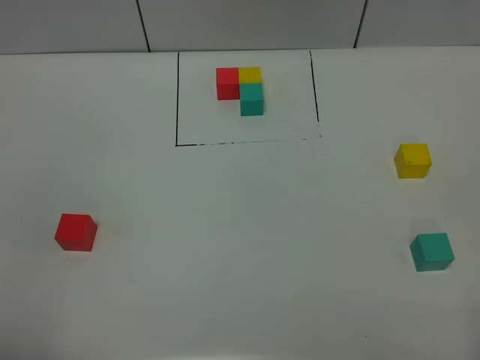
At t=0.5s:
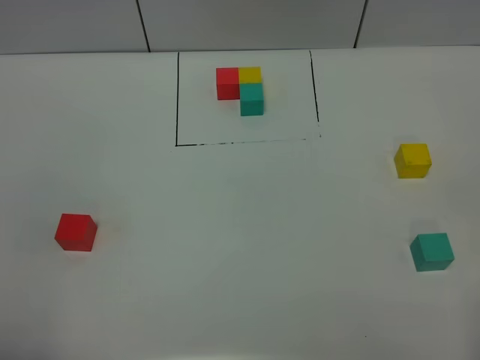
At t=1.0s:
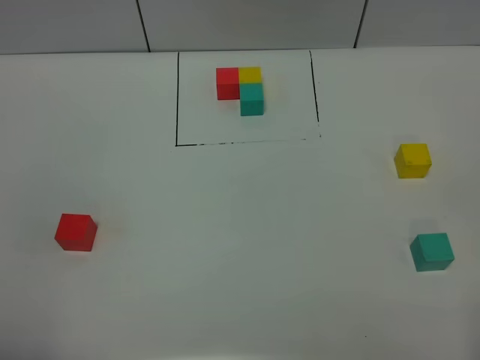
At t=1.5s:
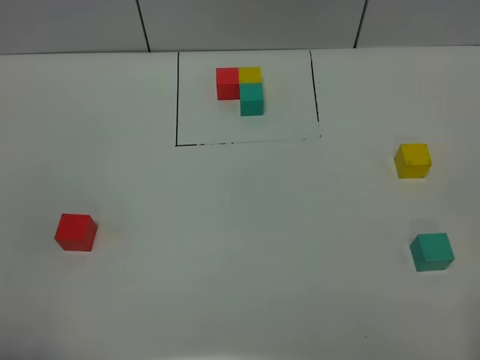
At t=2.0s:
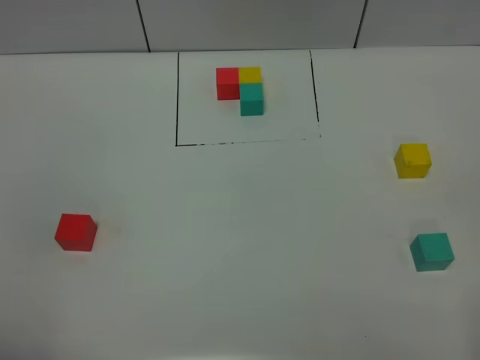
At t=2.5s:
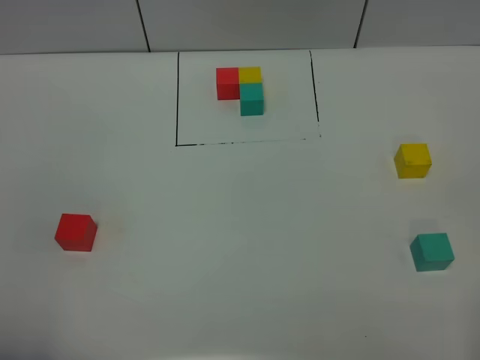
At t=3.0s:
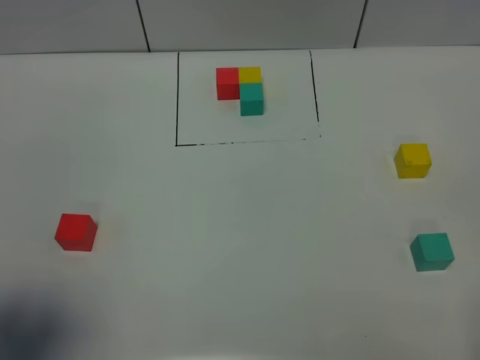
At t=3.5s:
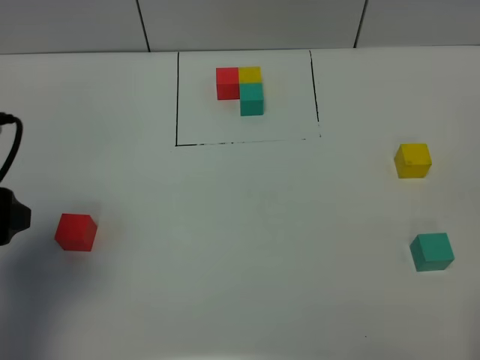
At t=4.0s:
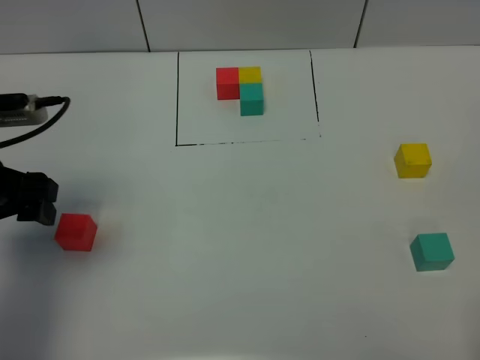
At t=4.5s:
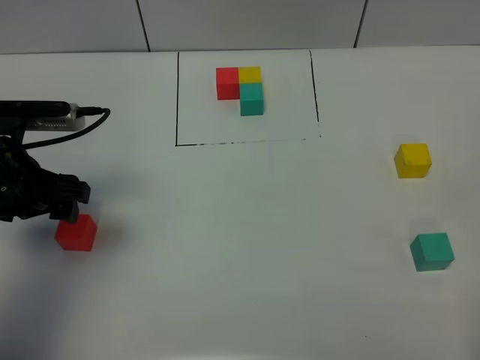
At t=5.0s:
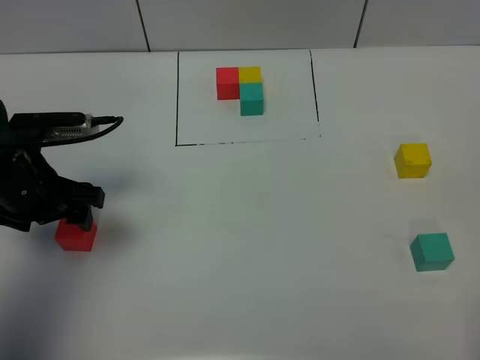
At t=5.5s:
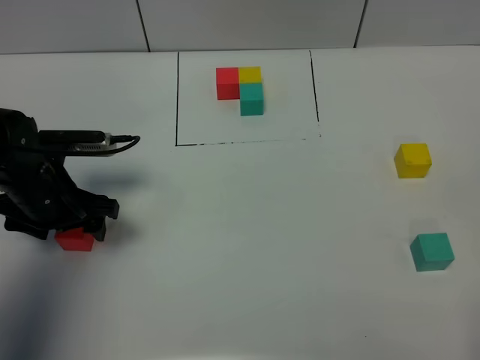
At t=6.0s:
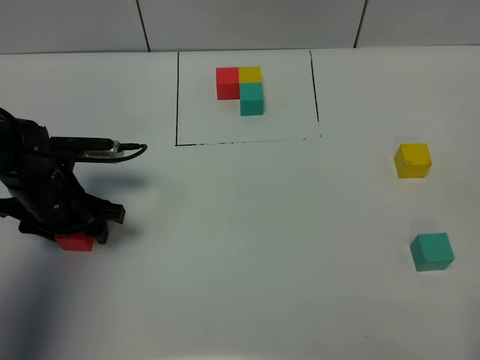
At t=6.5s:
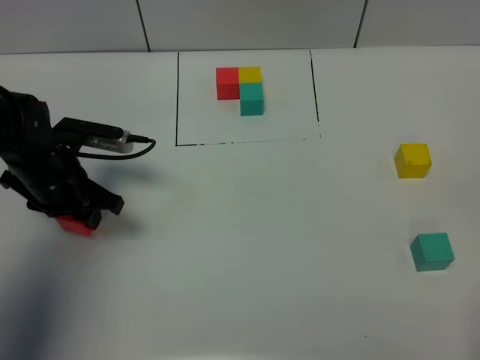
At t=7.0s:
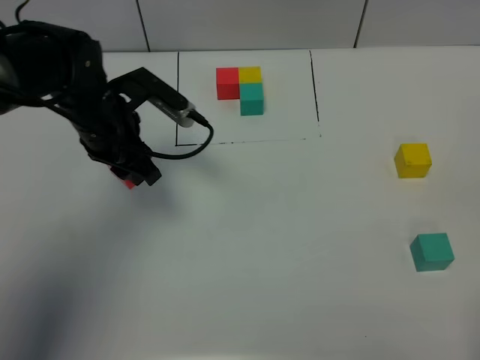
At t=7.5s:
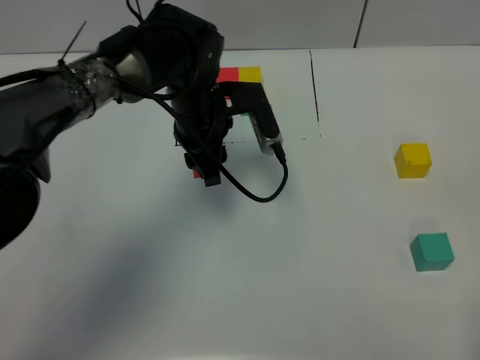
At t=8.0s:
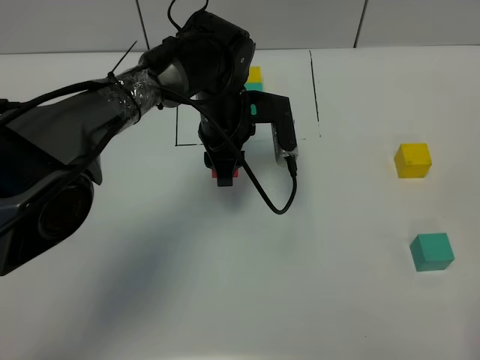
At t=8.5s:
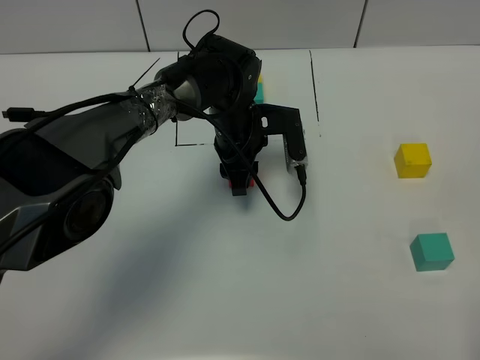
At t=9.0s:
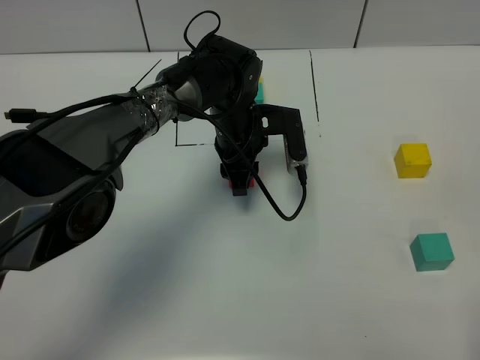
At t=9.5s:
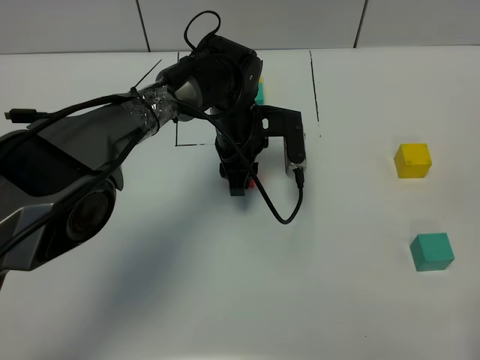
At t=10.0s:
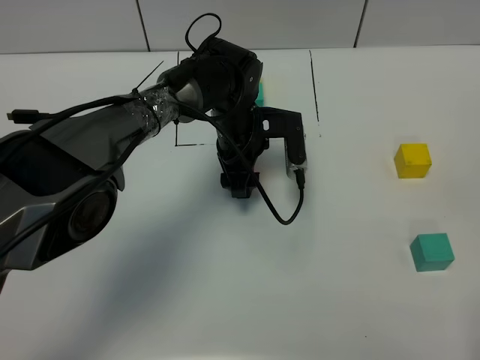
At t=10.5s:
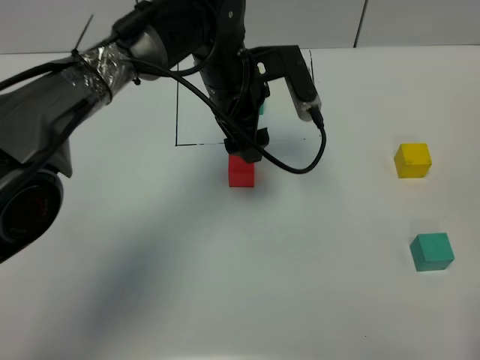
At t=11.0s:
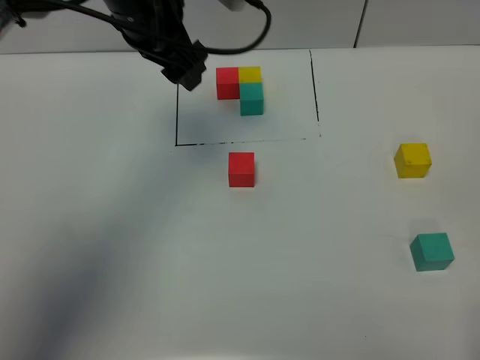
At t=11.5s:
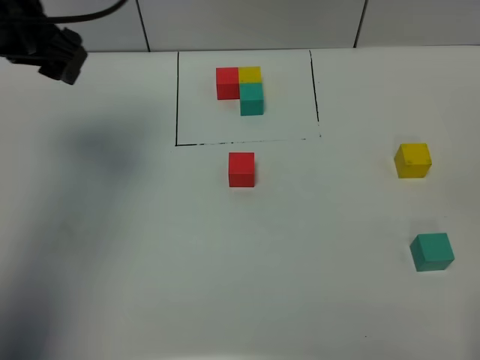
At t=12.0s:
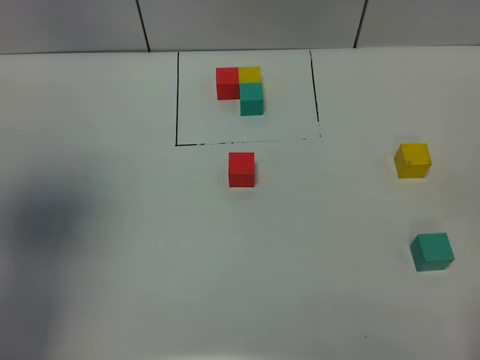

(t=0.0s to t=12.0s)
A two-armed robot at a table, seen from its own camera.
Task of the whole recording: According to the building block template in front, assemble the scattered blocks together.
Step, t=0.0s - t=10.0s: Put the red build block in the center of the table.
t=0.0s - t=2.0s: Both grippers stay put.
t=2.0s - t=4.0s: The left gripper shifts approximately 25 cm forward.
t=4.0s - t=6.0s: The left gripper heads downward and forward, covering approximately 15 cm, and closes up.
t=6.0s - t=8.0s: The left gripper is displaced to the right and forward by approximately 25 cm, and closes.
t=8.0s - t=10.0s: The left gripper opens.
t=10.0s - t=12.0s: The left gripper travels upward, to the left and backward by about 50 cm.

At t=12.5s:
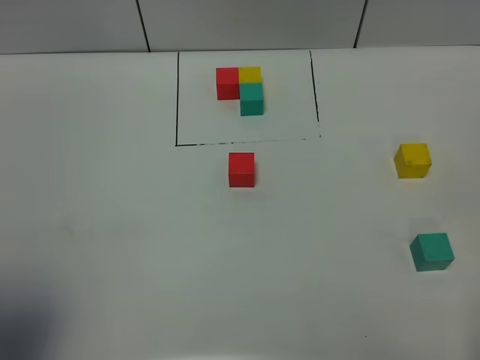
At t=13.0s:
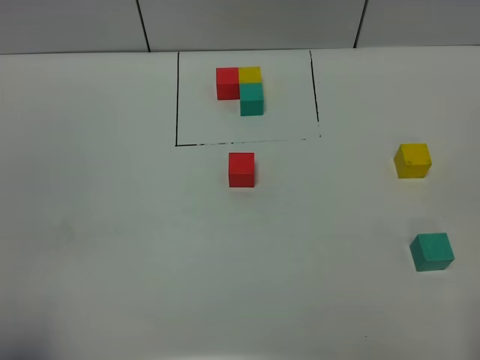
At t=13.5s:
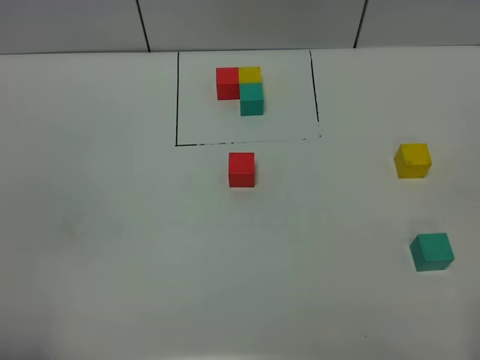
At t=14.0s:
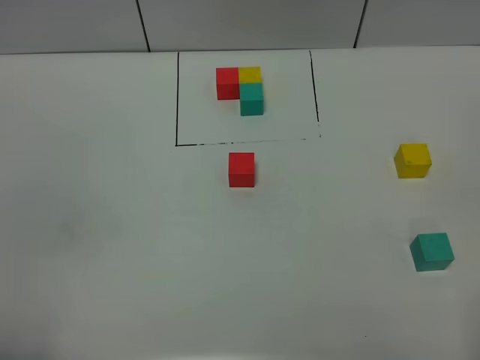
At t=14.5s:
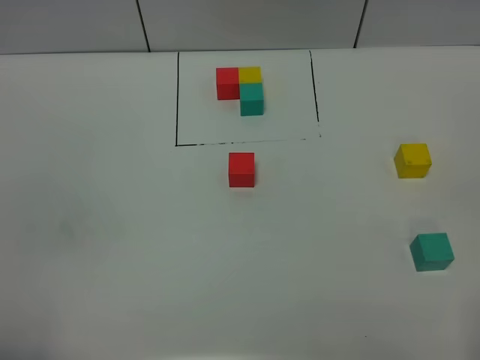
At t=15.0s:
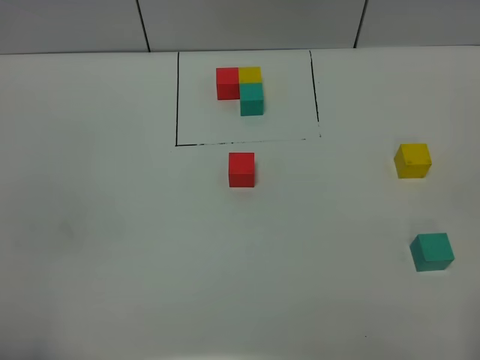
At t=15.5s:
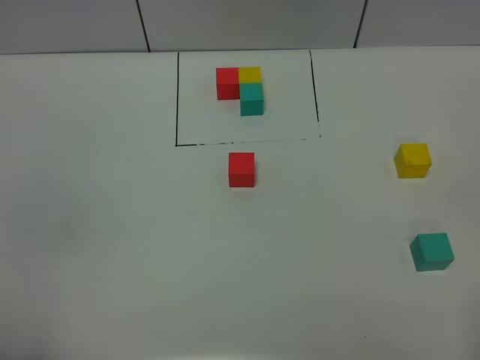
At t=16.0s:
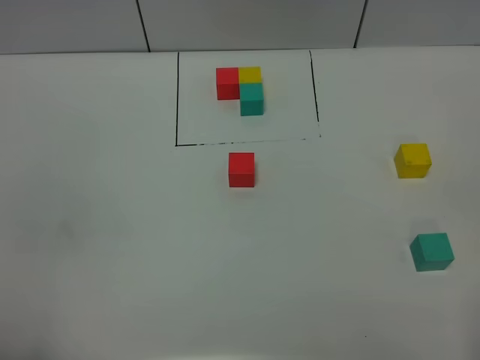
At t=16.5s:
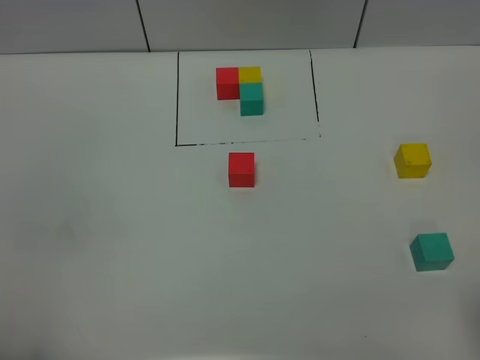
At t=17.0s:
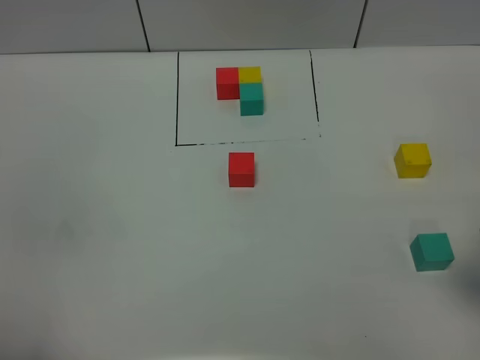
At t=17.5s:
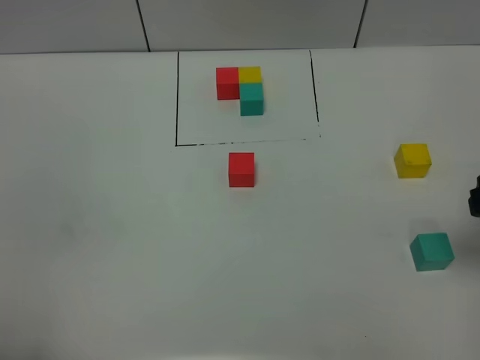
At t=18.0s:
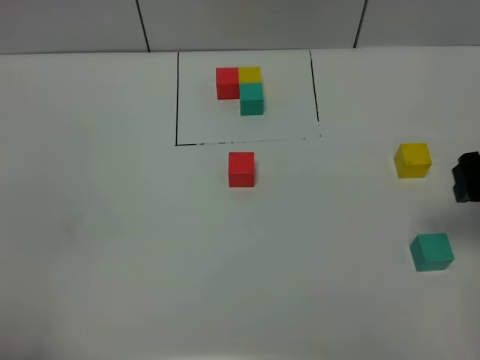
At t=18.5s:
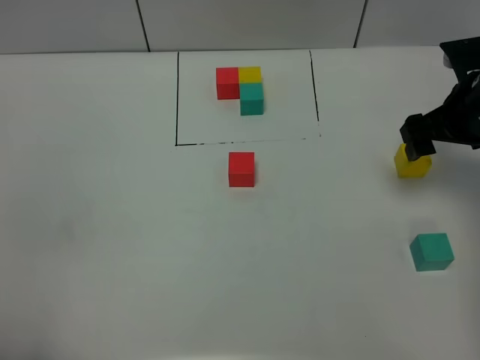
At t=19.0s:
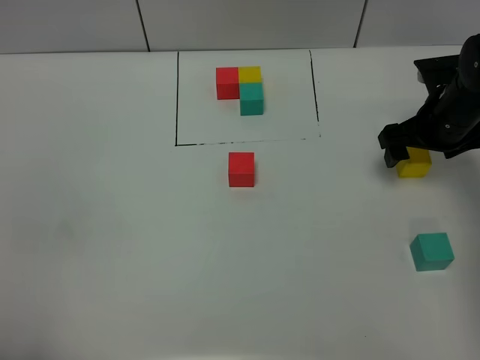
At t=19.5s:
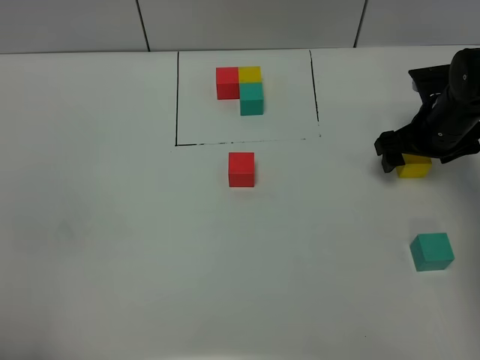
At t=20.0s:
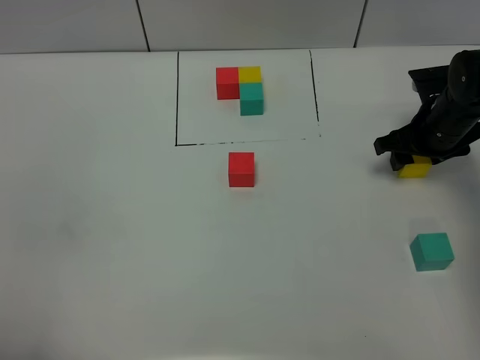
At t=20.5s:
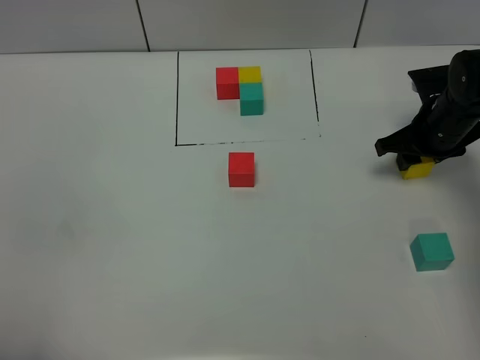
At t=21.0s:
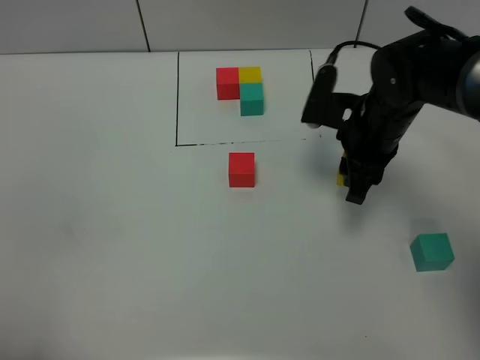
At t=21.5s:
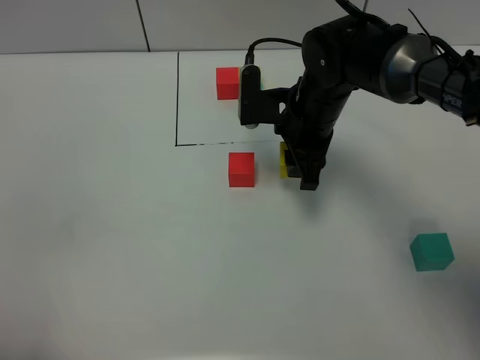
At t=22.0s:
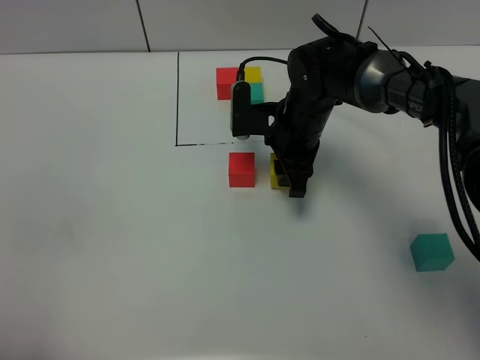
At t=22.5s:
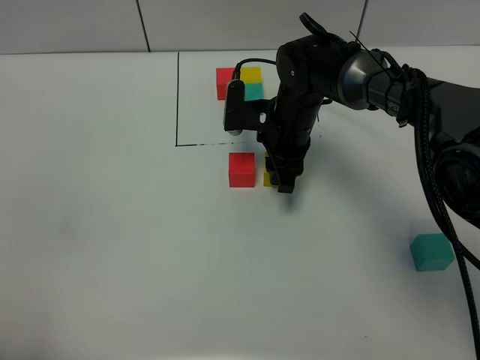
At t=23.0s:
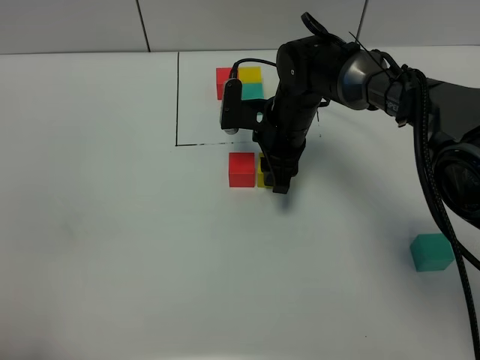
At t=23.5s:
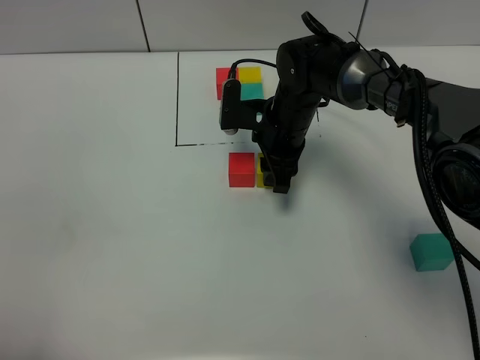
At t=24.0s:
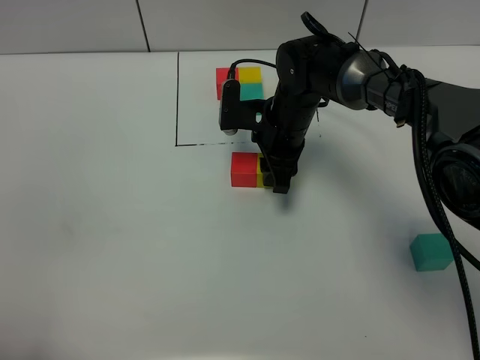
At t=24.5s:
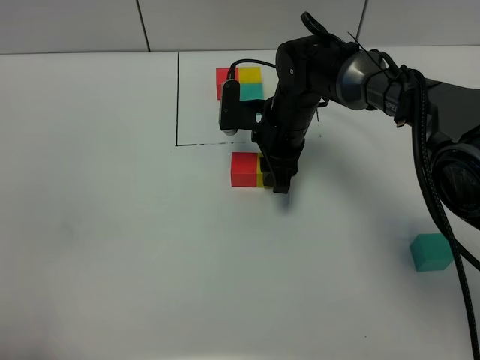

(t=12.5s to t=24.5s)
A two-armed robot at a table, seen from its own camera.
Task of the whole recording: According to the building block template in front, assemble the scattered blocks together.
t=12.5s - t=14.5s: The left gripper shifts about 15 cm downward and backward.
t=16.5s - t=18.5s: The right gripper moves forward, about 30 cm.
t=18.5s - t=20.5s: The right gripper travels downward by some 10 cm, and closes its fingers.
t=20.5s - t=22.5s: The right gripper heads to the left, covering approximately 20 cm.
t=22.5s - t=24.5s: Both grippers stay about where they are.

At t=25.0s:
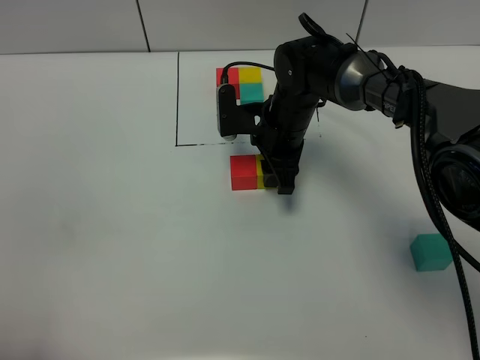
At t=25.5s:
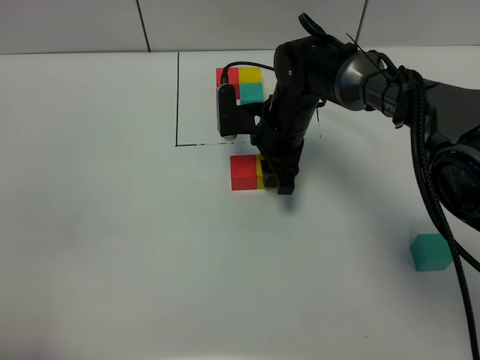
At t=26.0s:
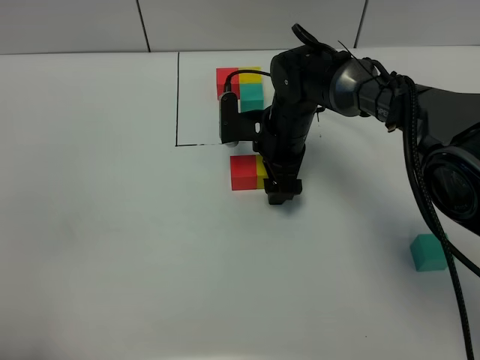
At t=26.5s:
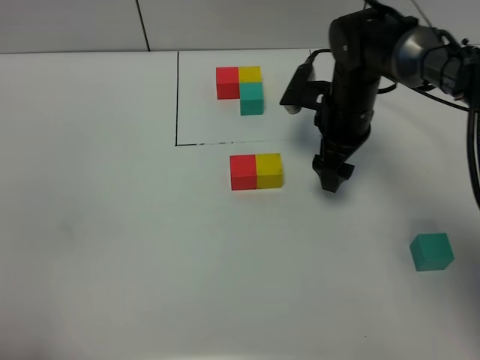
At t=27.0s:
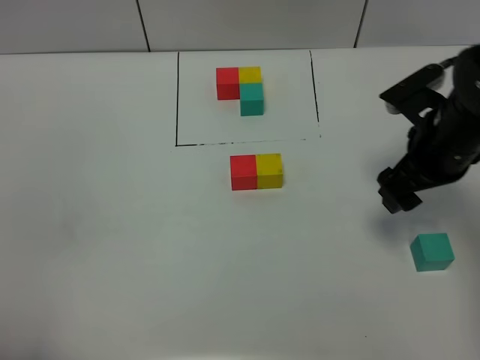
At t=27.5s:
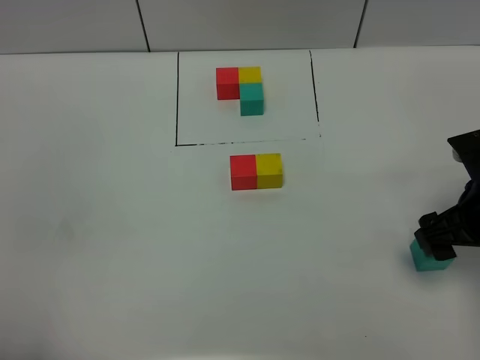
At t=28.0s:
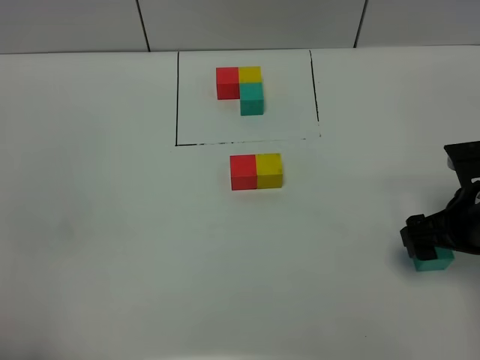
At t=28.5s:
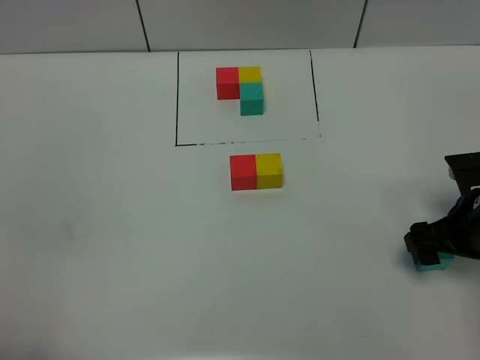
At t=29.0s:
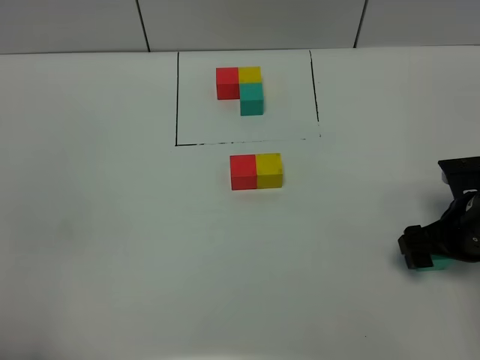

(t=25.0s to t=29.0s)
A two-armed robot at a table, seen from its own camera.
Task of the whole recording: According to the building block template in front, assemble the scattered blocks together.
t=25.0s - t=27.0s: The right gripper moves to the right, backward and upward, some 20 cm, and opens.
t=27.0s - t=29.0s: The right gripper goes roughly 10 cm downward.
